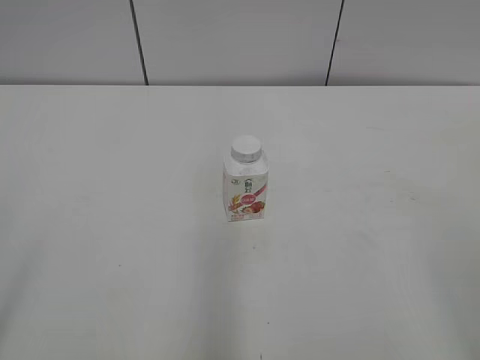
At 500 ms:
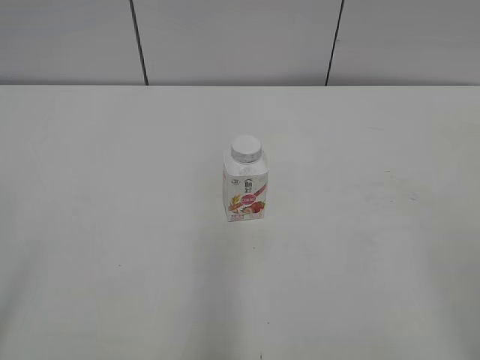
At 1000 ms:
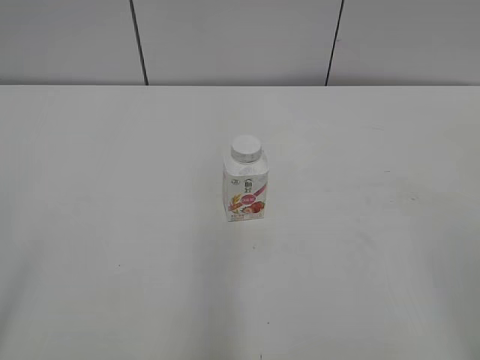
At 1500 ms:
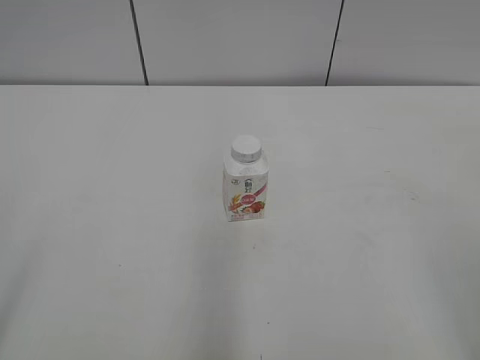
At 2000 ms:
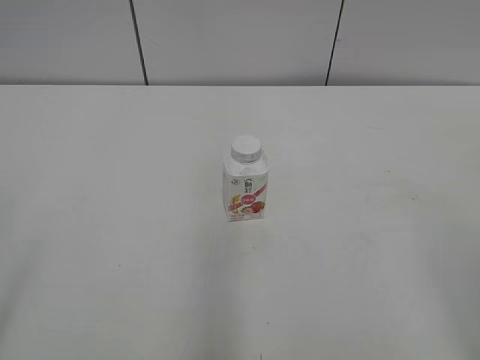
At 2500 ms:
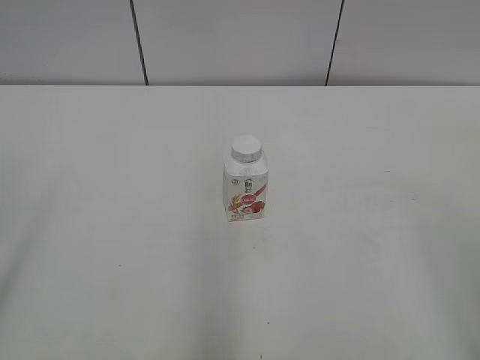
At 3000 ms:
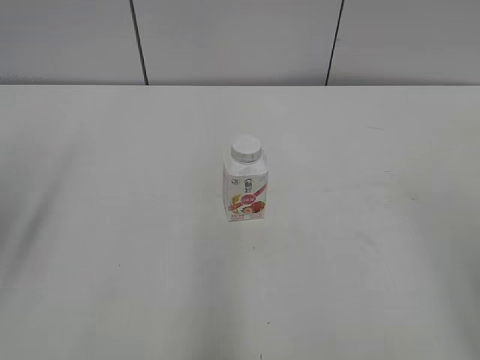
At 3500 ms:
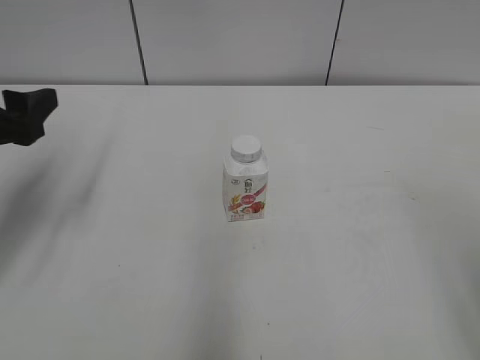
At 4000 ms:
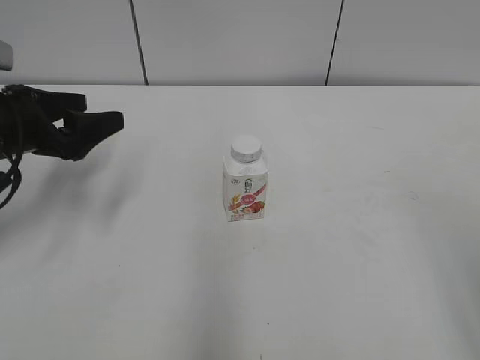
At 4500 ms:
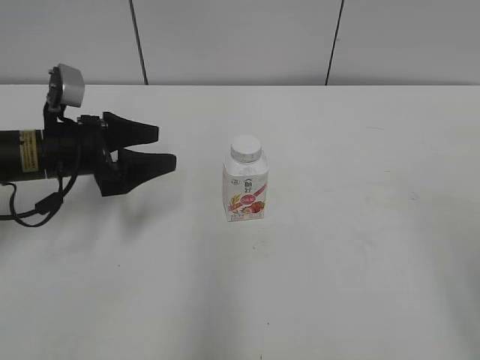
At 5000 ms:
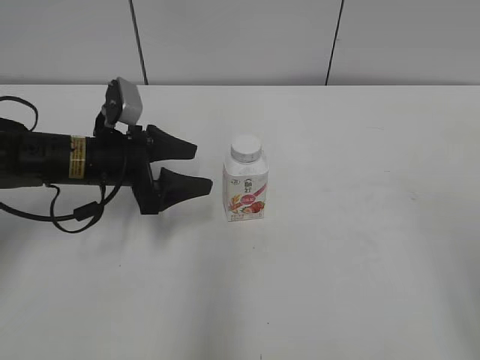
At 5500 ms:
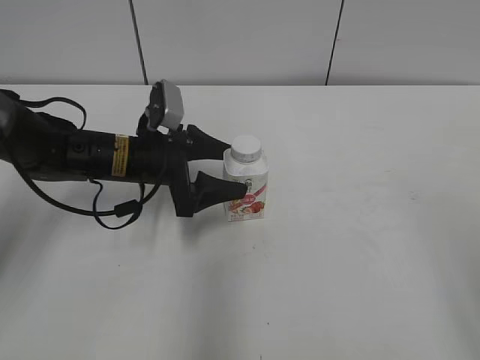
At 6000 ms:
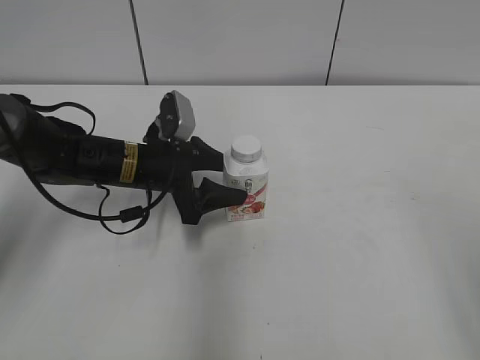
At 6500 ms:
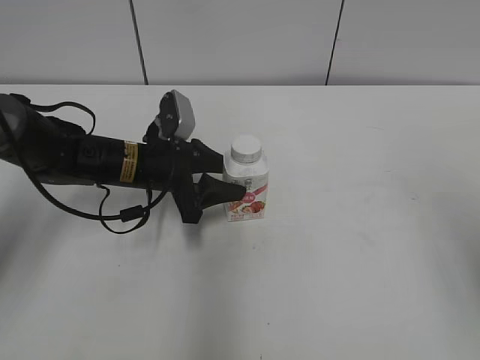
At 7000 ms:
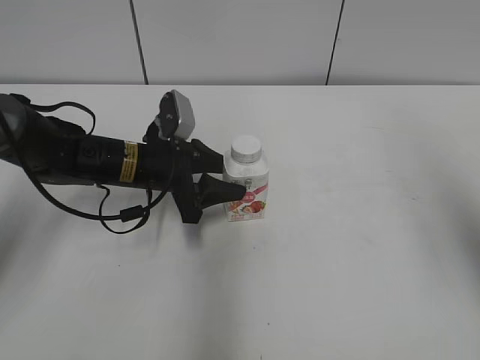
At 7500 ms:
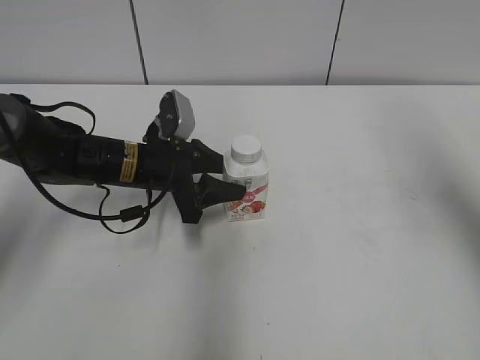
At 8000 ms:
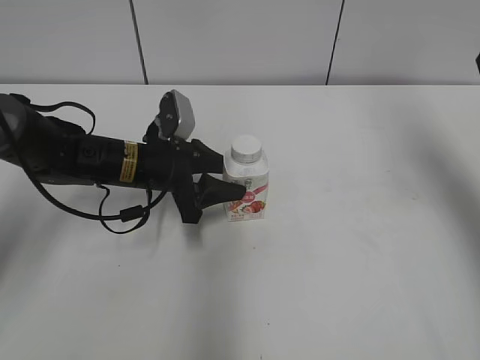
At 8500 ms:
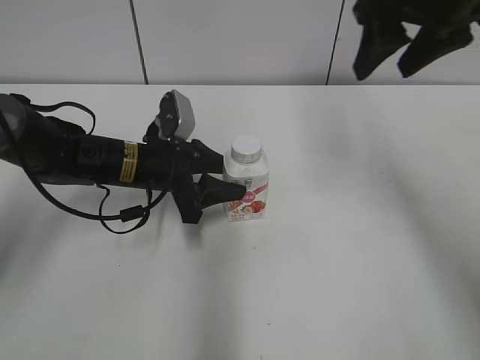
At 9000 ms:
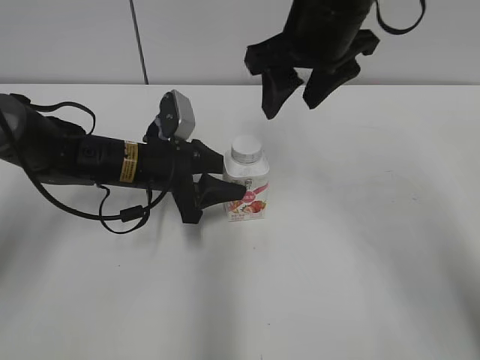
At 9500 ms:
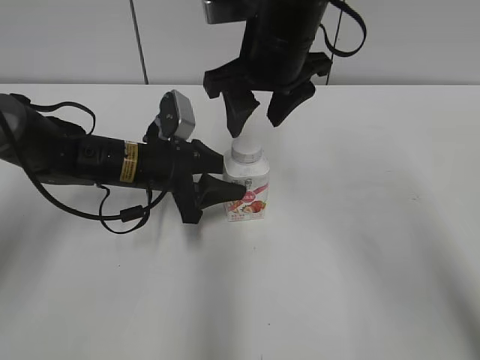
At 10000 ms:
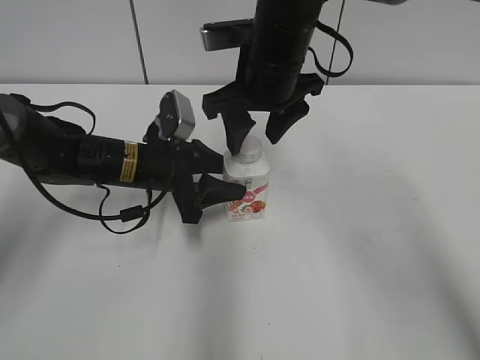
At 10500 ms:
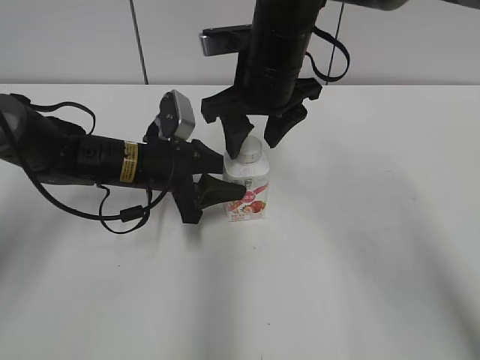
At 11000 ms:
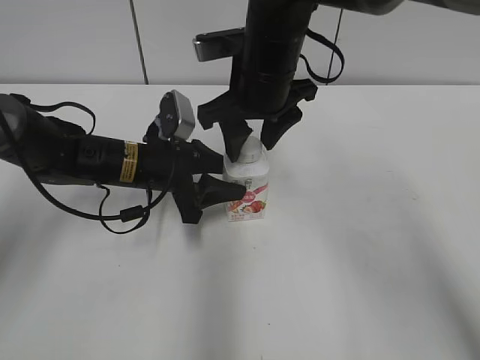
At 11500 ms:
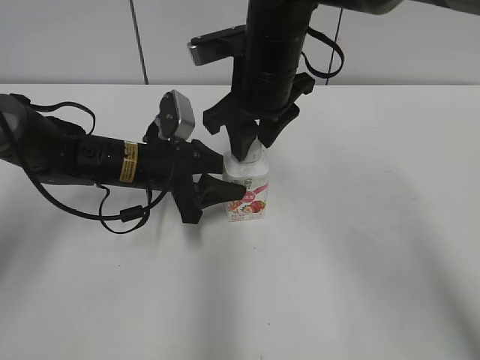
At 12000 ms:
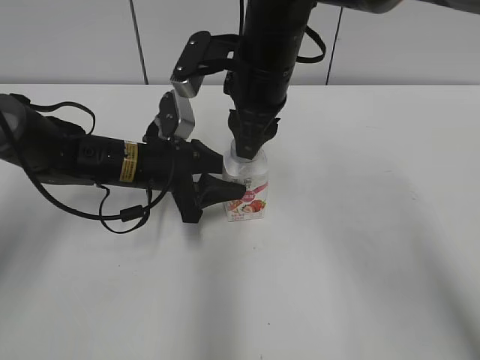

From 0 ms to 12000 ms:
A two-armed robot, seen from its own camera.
Step, from 0 ms to 6000 ms: Grab the Yili Changqing with the left hand.
From 2000 ms to 4000 ms: The left gripper travels forward by roughly 30 cm.
From 4000 ms to 6000 ms: The left gripper moves to the right and downward, approximately 15 cm.
From 6000 ms to 8000 ms: The left gripper closes up, while the right gripper travels forward by some 30 cm.
From 8000 ms to 10000 ms: The right gripper travels to the left and downward by approximately 30 cm.
From 10000 ms to 12000 ms: The right gripper closes.

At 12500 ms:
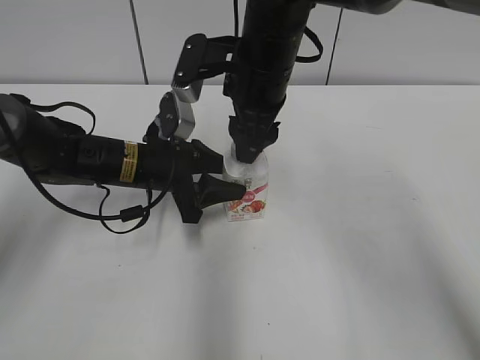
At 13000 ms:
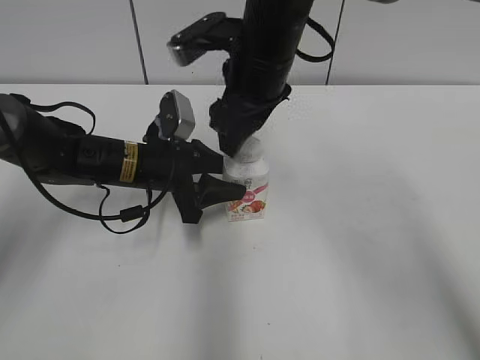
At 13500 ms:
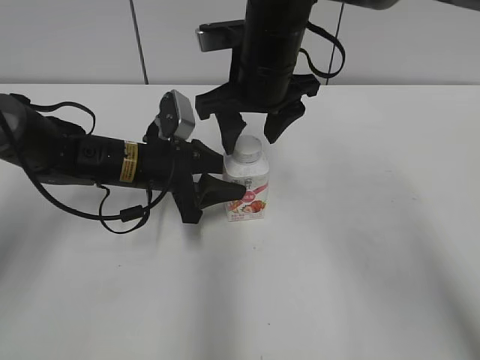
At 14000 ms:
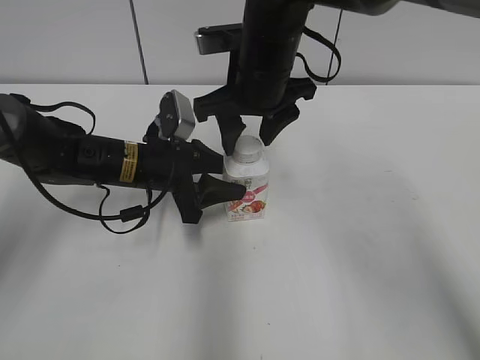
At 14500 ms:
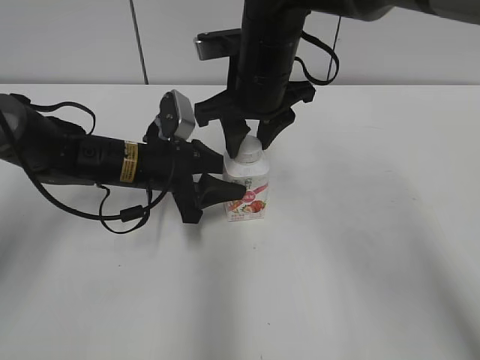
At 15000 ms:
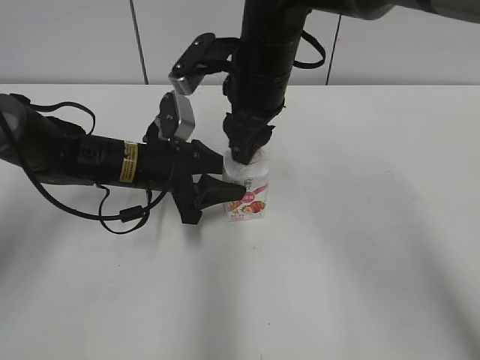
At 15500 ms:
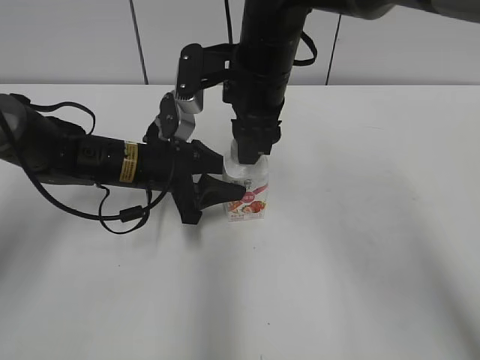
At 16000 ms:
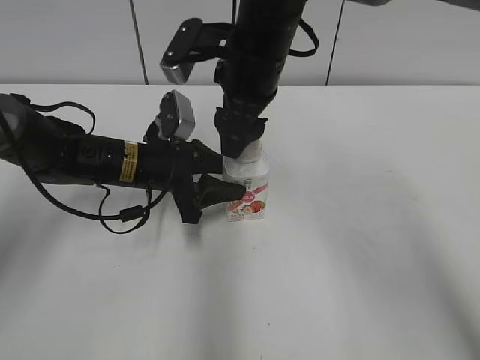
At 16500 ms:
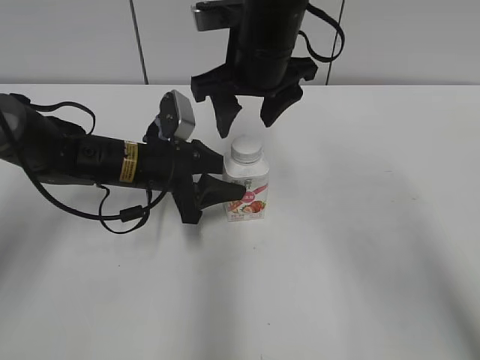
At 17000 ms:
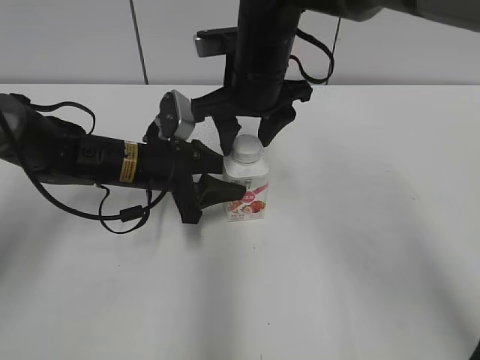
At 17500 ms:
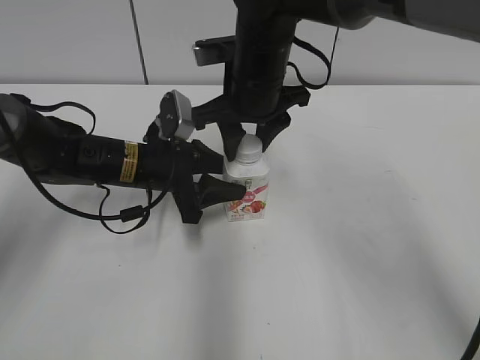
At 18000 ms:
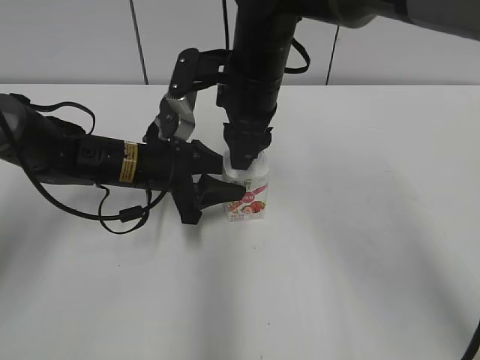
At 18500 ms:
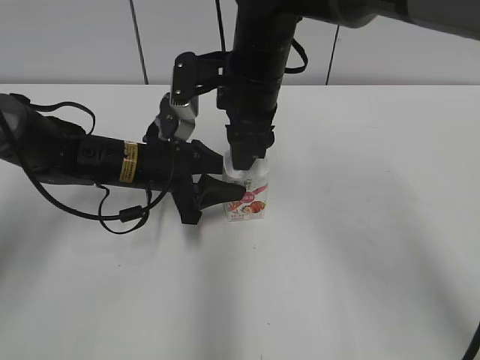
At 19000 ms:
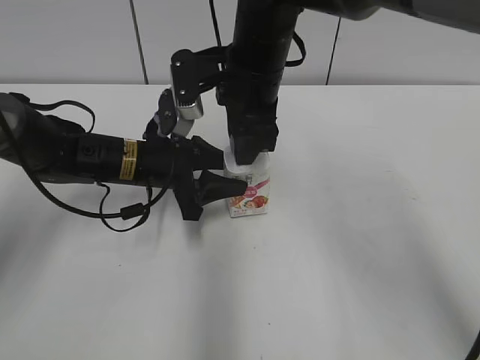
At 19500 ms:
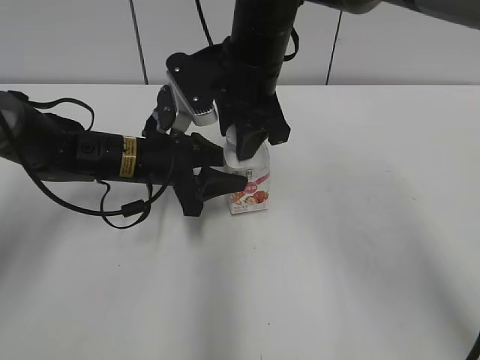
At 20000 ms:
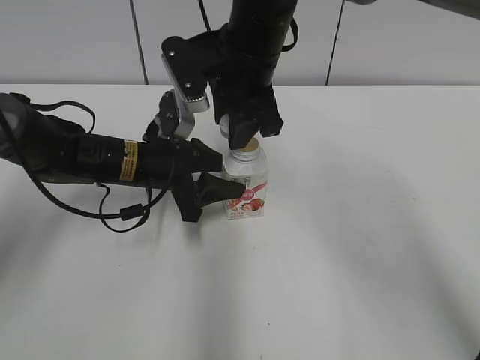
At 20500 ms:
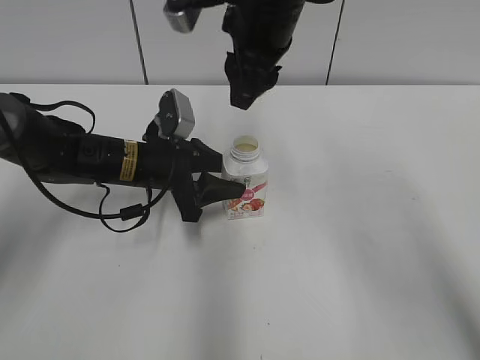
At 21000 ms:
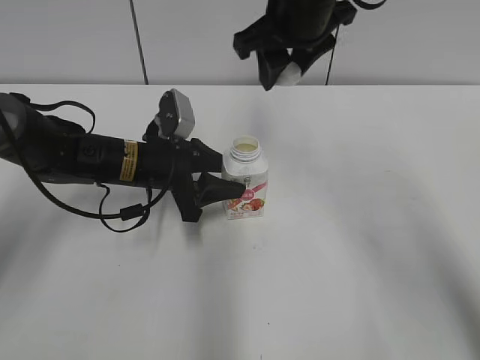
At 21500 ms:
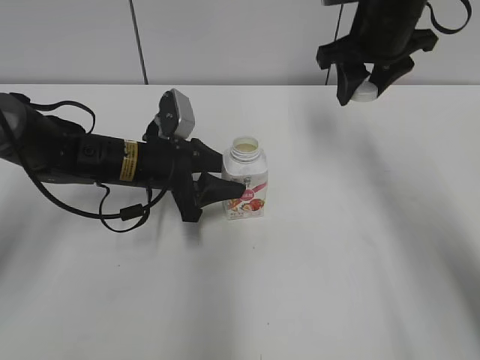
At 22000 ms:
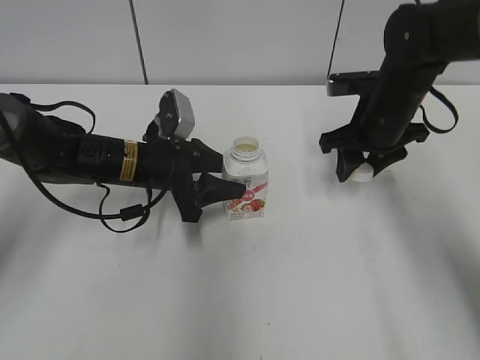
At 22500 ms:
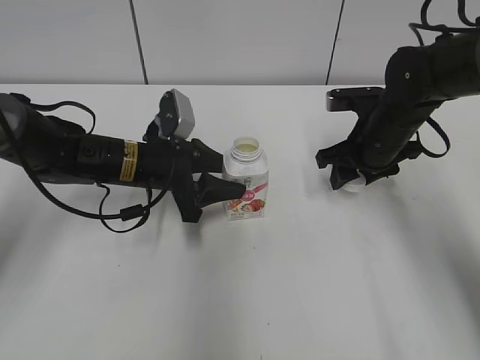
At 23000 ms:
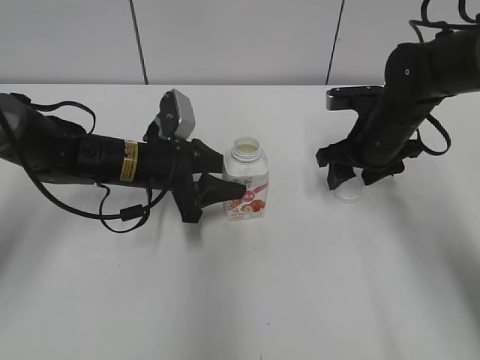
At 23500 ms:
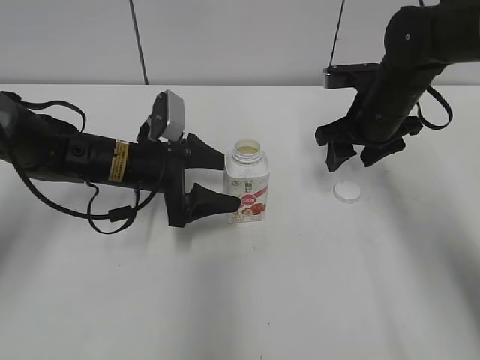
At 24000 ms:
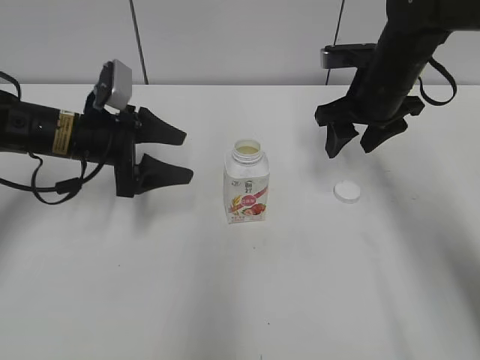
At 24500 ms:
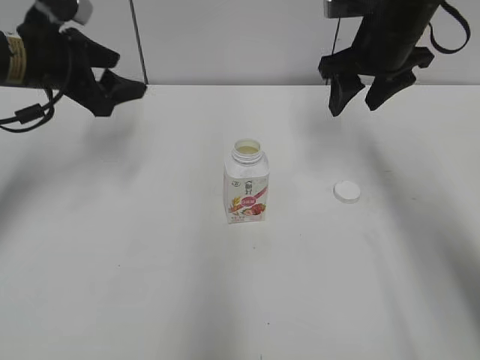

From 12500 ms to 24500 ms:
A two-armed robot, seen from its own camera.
Step, from 20000 ms to 23000 ms: Place the bottle cap on the right.
From 14500 ms to 16500 ms: The right gripper opens.
From 16500 ms to 18500 ms: The right gripper closes its fingers.
From 18500 ms to 20500 ms: The right gripper shifts roughly 10 cm upward.
From 20500 ms to 22500 ms: The right gripper moves downward and to the right, some 25 cm.
From 22500 ms to 24500 ms: The right gripper goes approximately 10 cm upward, and opens up. The left gripper shifts approximately 15 cm upward and to the left, and opens up.

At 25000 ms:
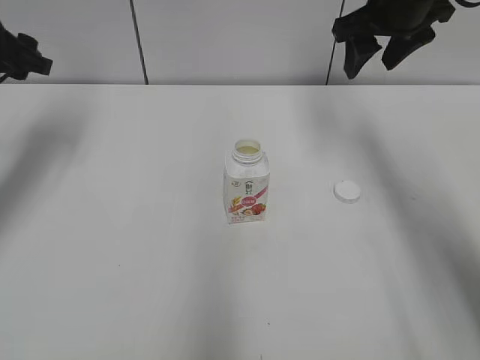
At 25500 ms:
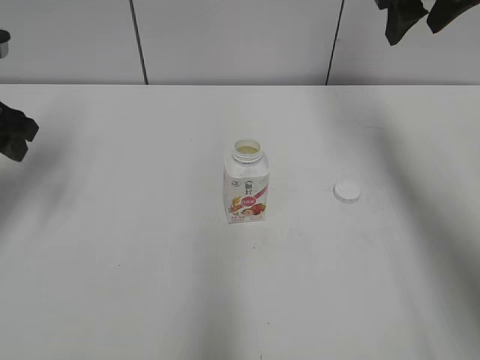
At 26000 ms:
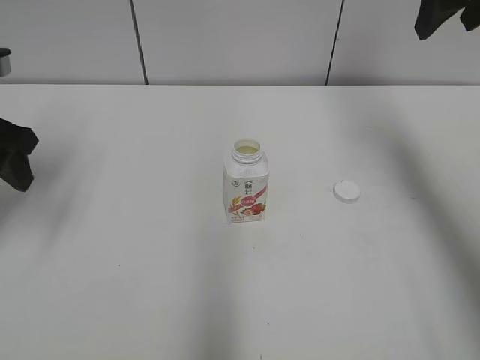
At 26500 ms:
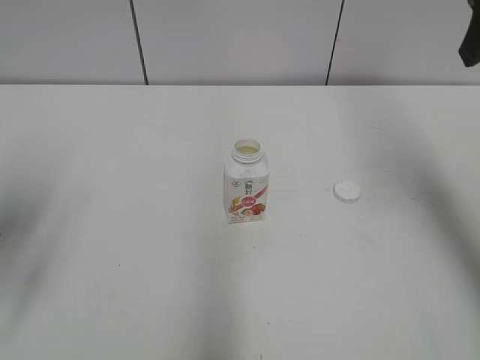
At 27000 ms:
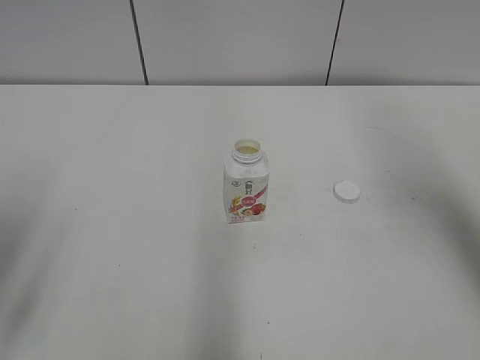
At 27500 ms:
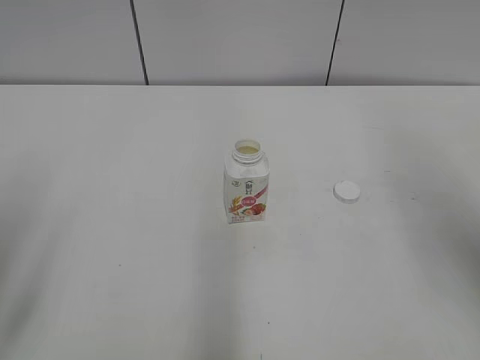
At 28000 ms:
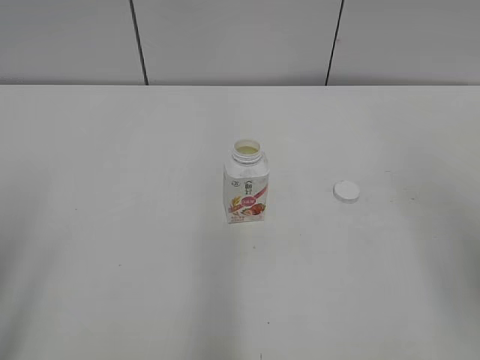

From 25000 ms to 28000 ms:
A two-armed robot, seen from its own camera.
From 25000 ms to 26500 ms: The right gripper travels backward, upward and to the right by approximately 15 cm; the left gripper is displaced backward by approximately 20 cm.
From 26500 ms to 28000 ms: The right gripper heads backward, covering roughly 20 cm; the left gripper shifts some 10 cm backward.
